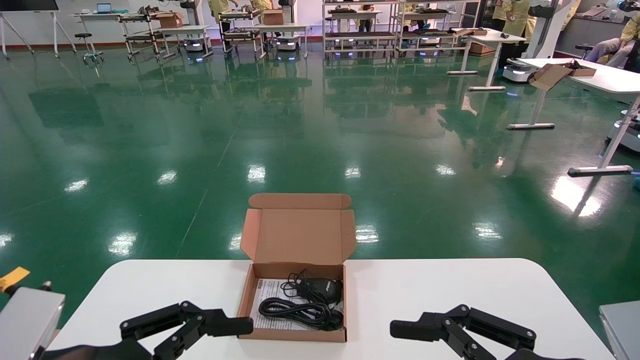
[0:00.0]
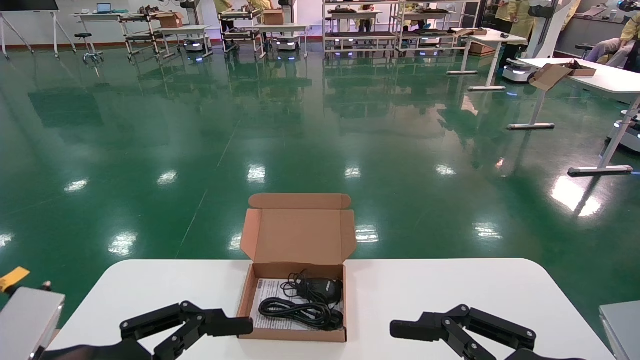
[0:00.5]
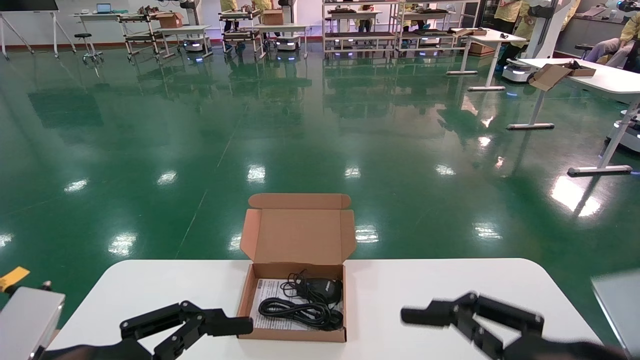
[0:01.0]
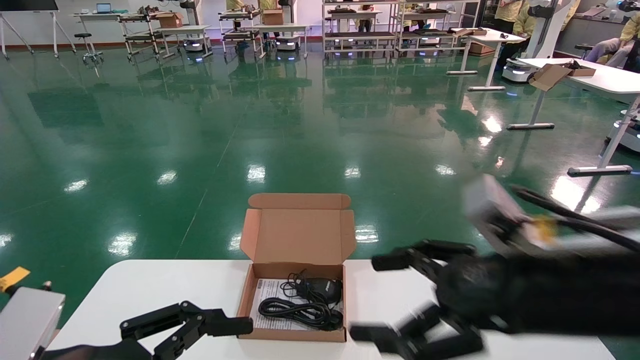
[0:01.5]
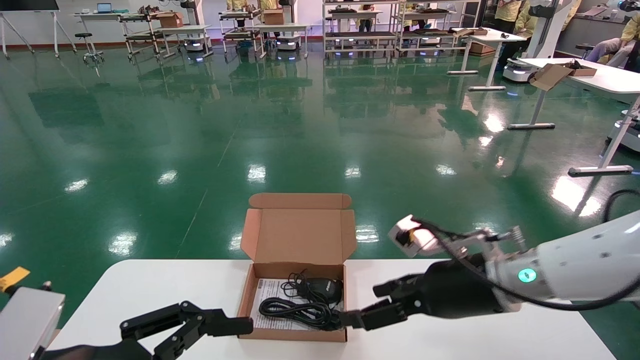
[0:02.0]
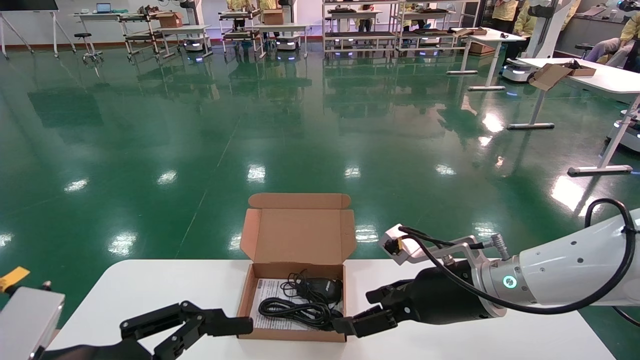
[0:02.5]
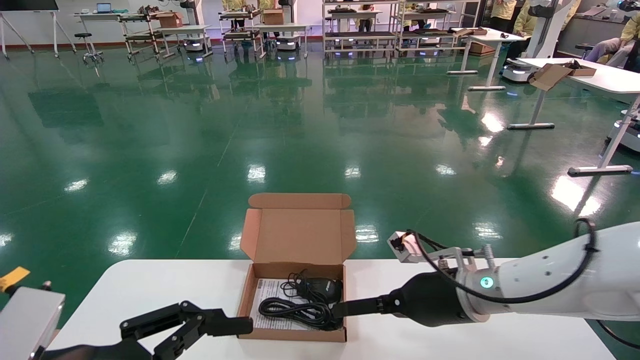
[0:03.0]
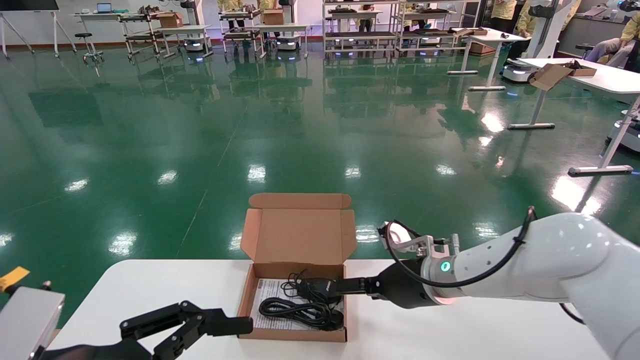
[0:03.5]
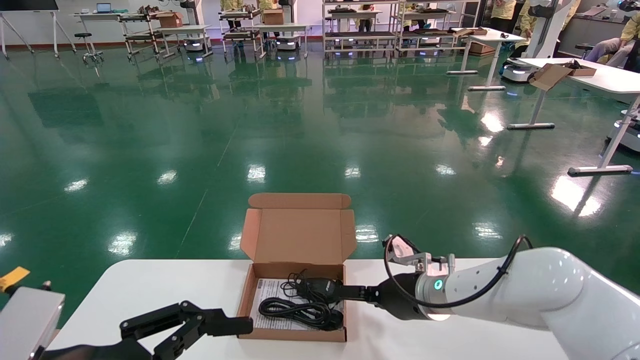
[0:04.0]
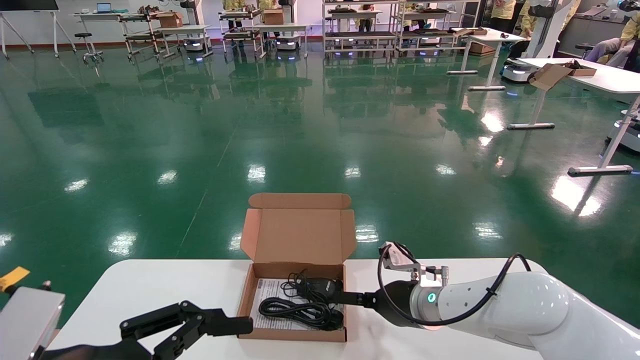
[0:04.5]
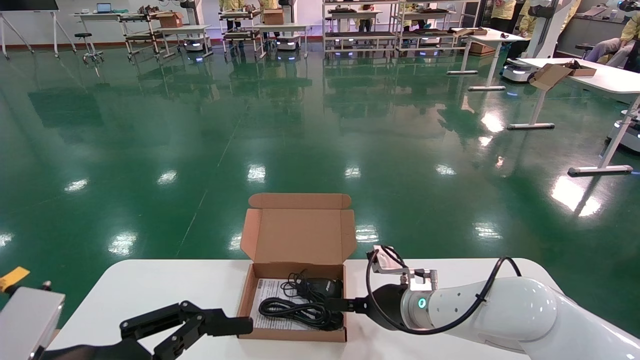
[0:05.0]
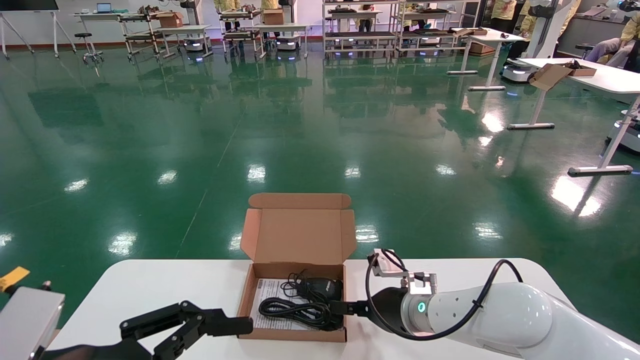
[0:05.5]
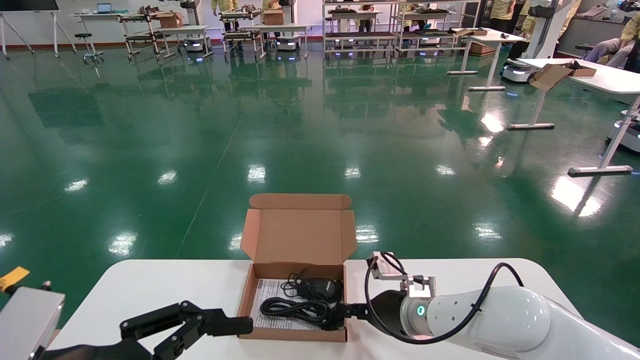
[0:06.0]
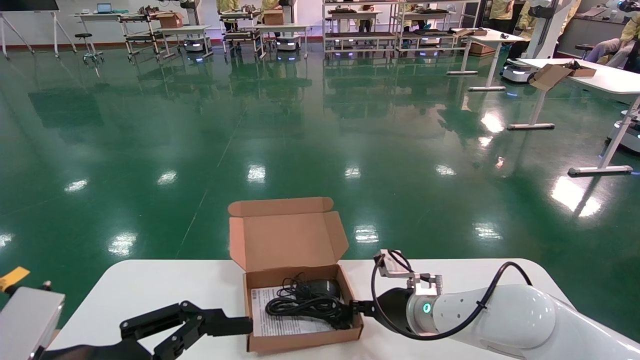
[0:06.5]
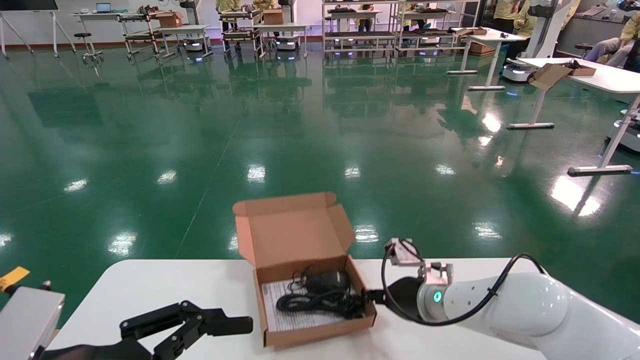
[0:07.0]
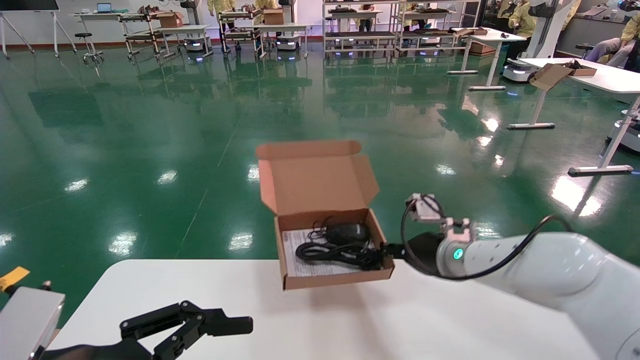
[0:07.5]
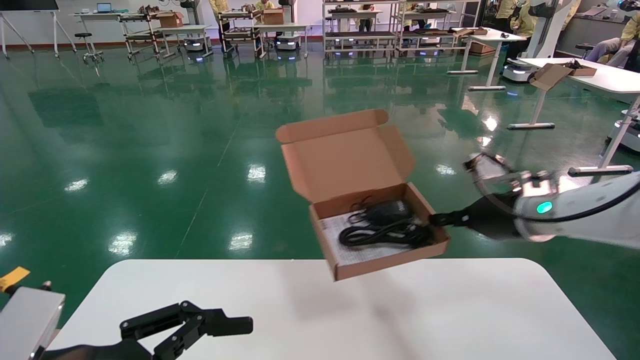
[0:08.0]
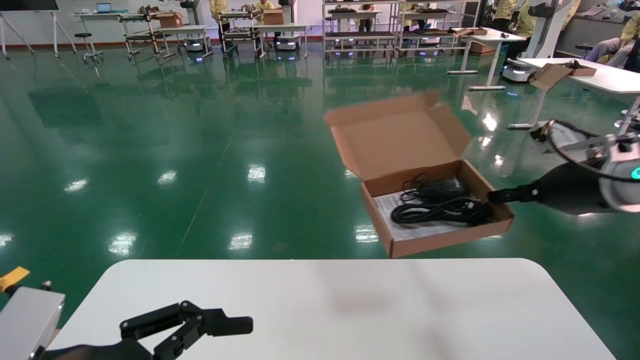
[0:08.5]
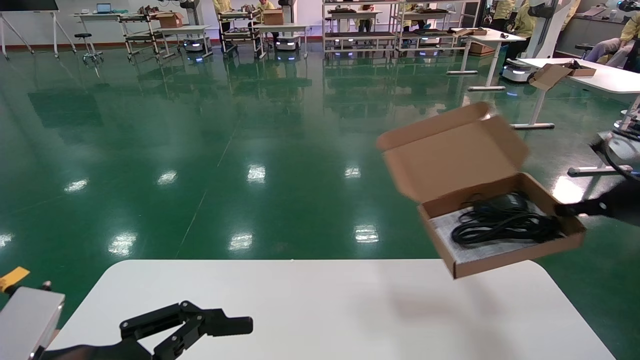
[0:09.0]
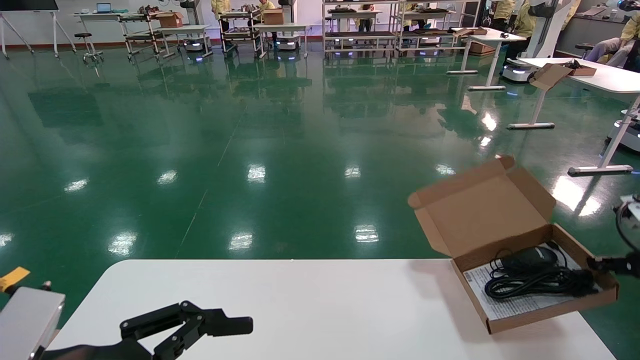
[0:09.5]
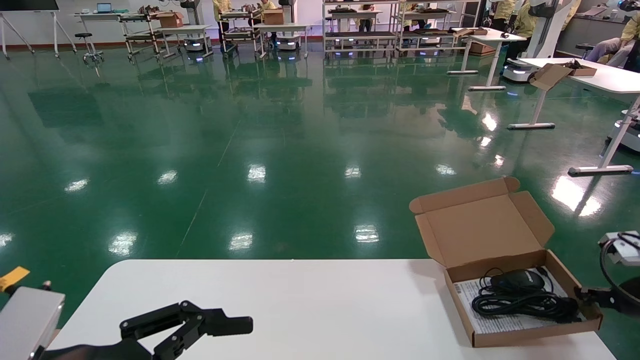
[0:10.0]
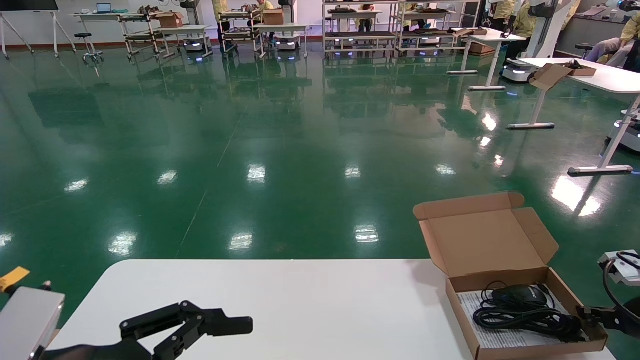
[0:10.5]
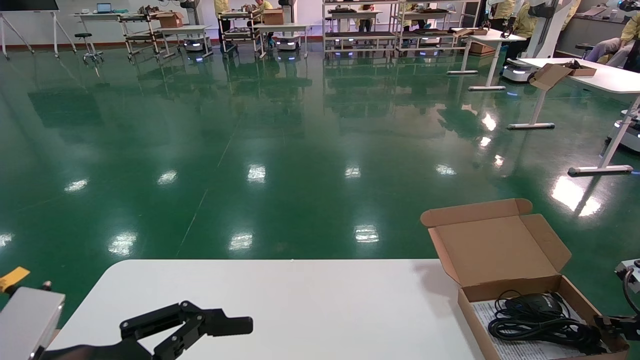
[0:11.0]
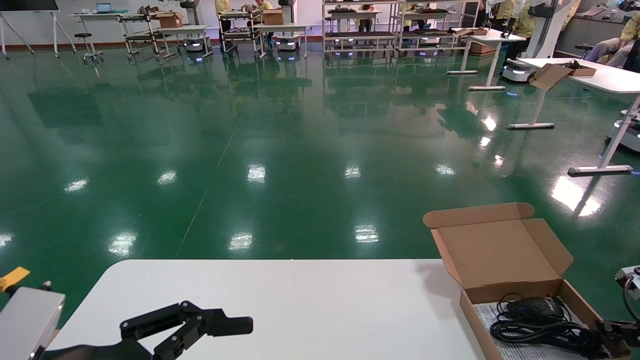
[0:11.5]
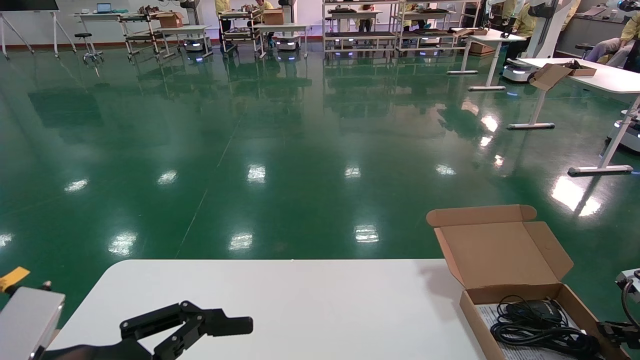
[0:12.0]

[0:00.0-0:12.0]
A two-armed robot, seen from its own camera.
Task of the whole recording: move the position of the storage box with accessories on the table.
Step, 0:01.5 to 0:06.5: Grab and pick up the open mouse box from the accessory packaging area.
0:00.0 to 0:02.0: The right gripper moves forward, about 20 cm.
0:02.0 to 0:04.0: The right gripper goes approximately 15 cm forward and downward.
0:04.0 to 0:06.0: The right gripper closes up.
0:06.0 to 0:08.0: The right gripper shifts approximately 20 cm upward and to the right, and closes its fingers.
0:08.0 to 0:10.0: The right gripper heads to the right and downward, covering some 25 cm.
0:10.0 to 0:12.0: The right gripper heads downward, covering approximately 5 cm.

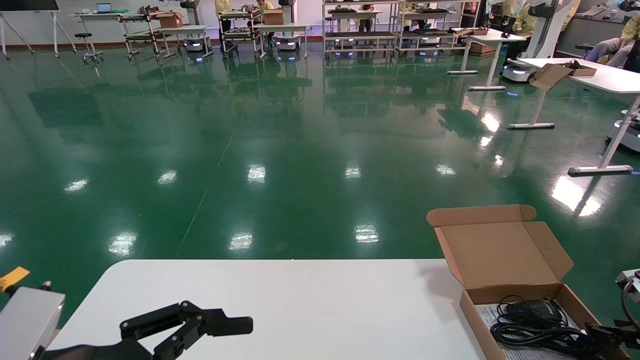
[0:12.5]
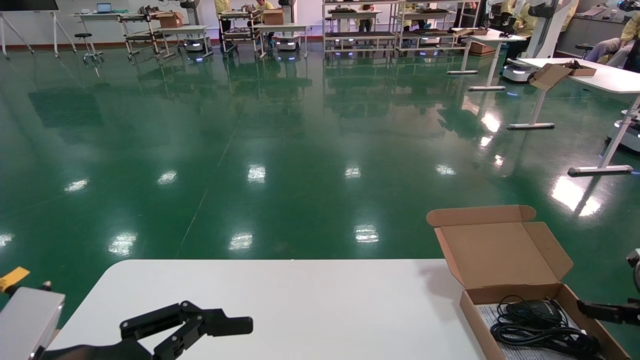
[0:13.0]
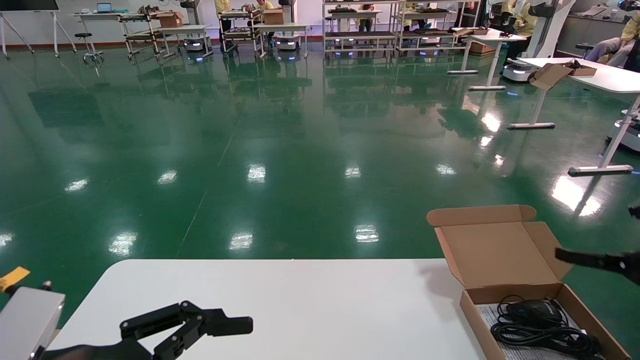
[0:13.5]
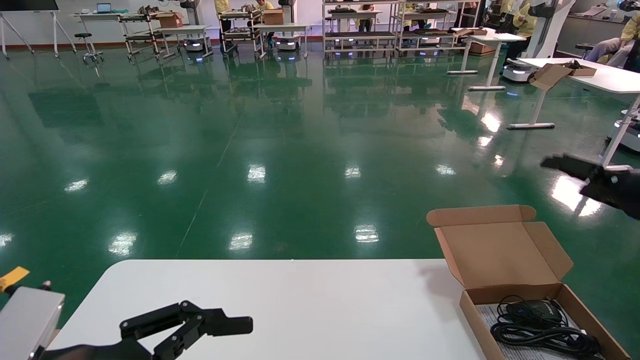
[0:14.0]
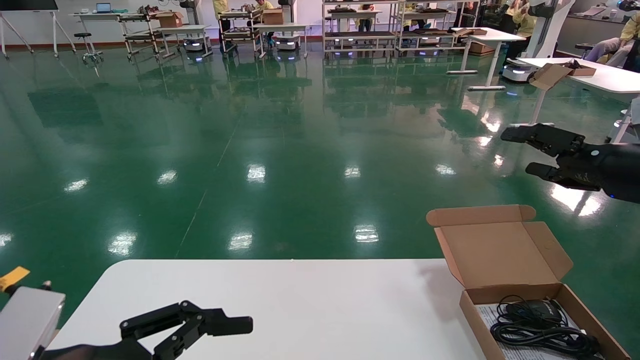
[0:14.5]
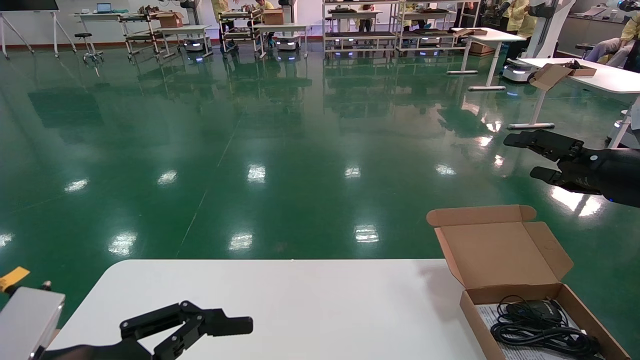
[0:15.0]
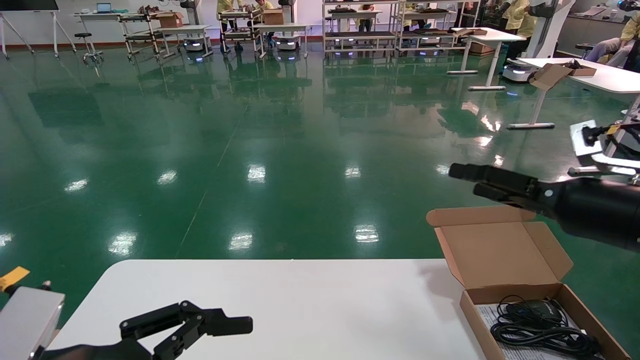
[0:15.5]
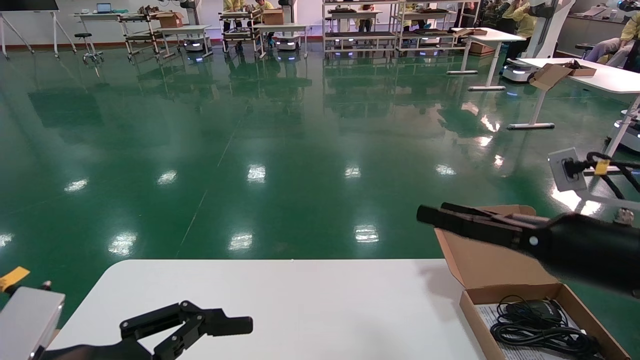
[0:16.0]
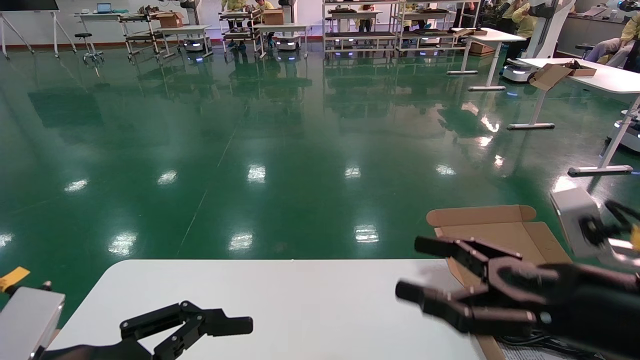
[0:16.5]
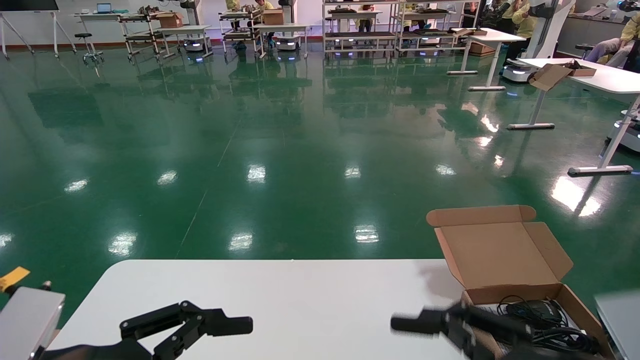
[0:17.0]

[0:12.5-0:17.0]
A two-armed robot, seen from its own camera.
Task of the whole recording: move the position of the storage box with accessories on the table.
0:12.5 to 0:14.5: The right gripper shifts about 25 cm upward and to the left, and opens.
0:14.5 to 0:17.0: The right gripper shifts some 25 cm backward, to the left and downward.

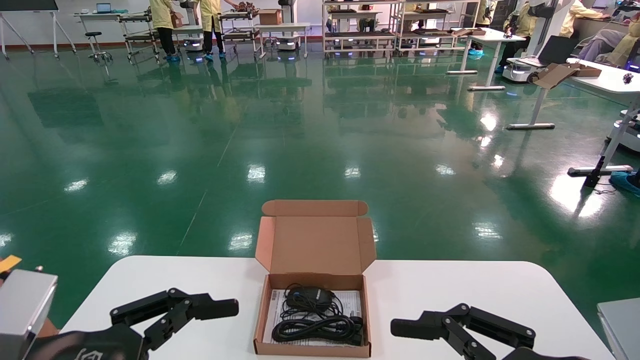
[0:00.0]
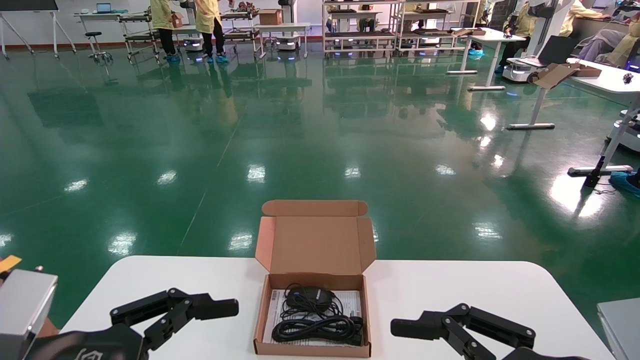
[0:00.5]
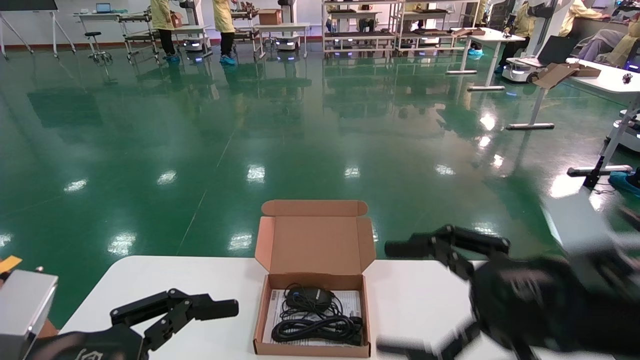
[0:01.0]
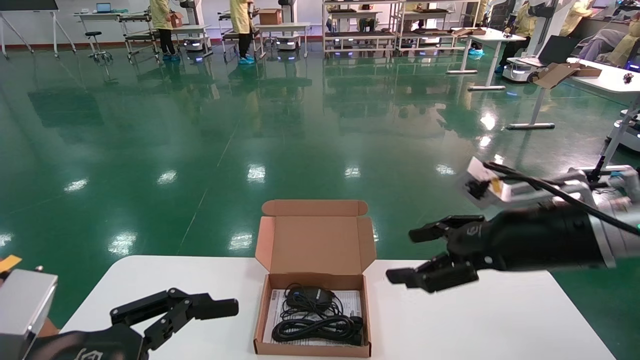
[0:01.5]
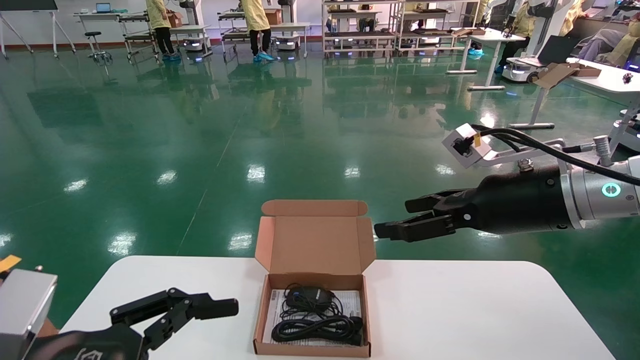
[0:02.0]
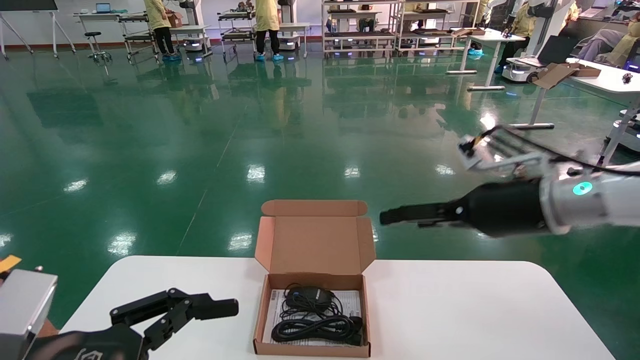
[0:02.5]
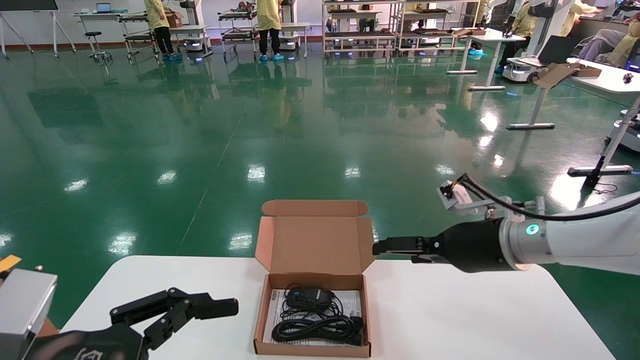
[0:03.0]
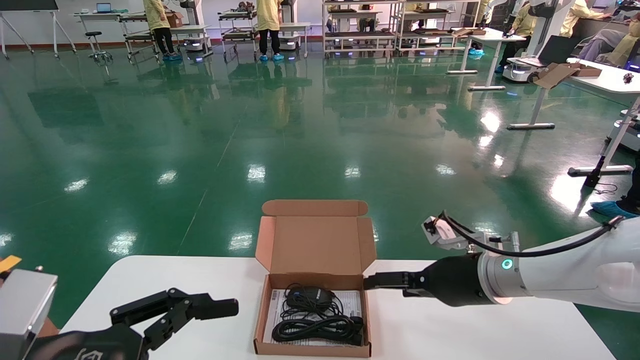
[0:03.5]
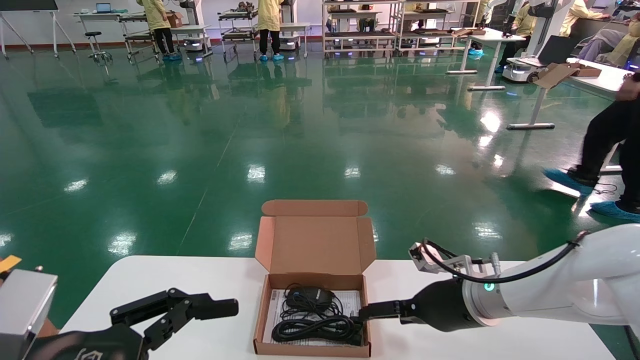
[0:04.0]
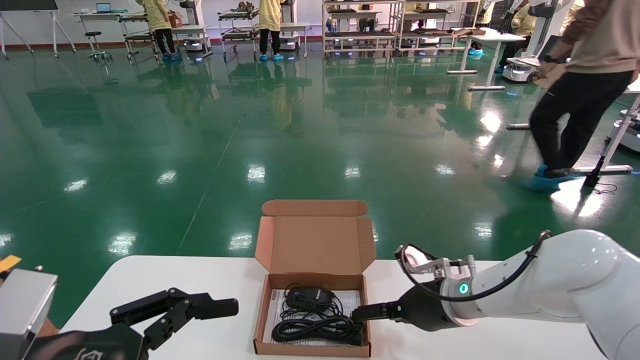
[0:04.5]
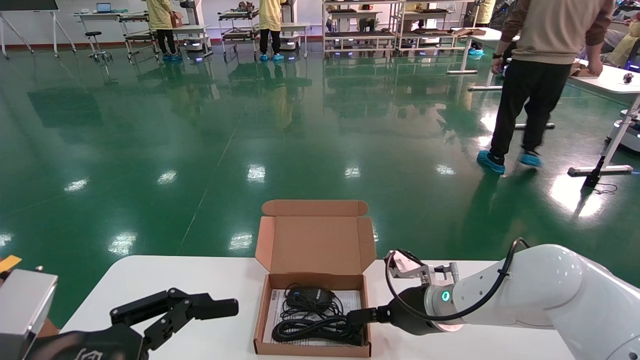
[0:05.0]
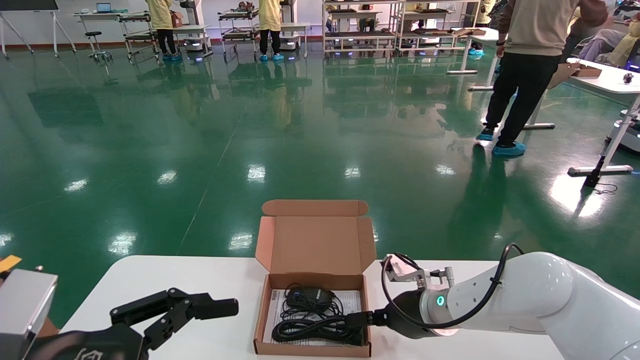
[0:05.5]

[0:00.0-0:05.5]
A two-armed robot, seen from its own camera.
Task of the whole recording: move the position of the storage box with accessories on the table.
0:00.0 to 0:02.0: The right gripper goes about 20 cm forward and upward.
0:02.0 to 0:03.5: The right gripper heads downward and forward, covering approximately 15 cm.
0:03.5 to 0:05.5: The right gripper moves downward and to the left, roughly 10 cm.
